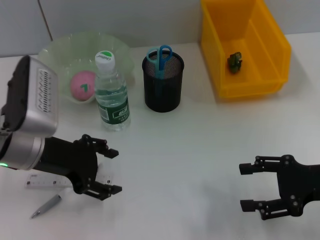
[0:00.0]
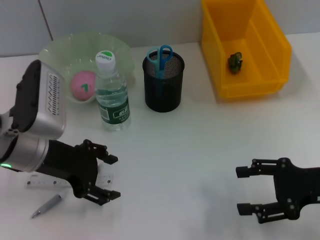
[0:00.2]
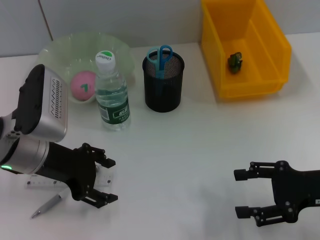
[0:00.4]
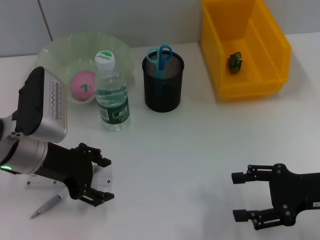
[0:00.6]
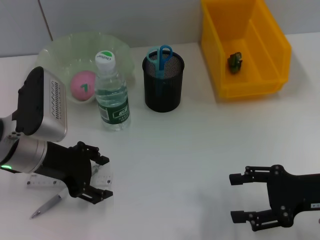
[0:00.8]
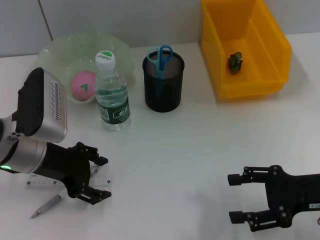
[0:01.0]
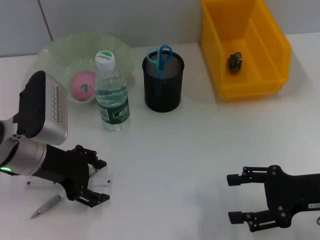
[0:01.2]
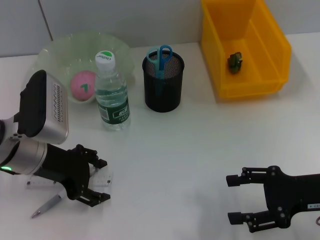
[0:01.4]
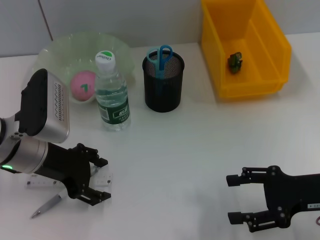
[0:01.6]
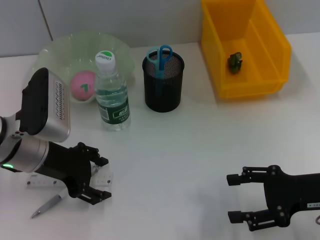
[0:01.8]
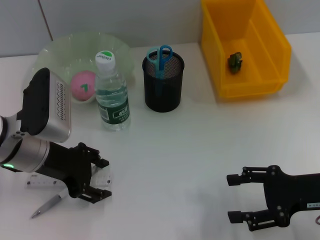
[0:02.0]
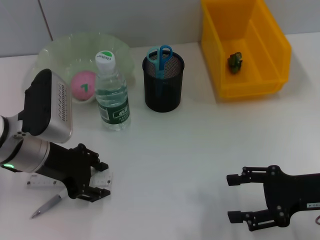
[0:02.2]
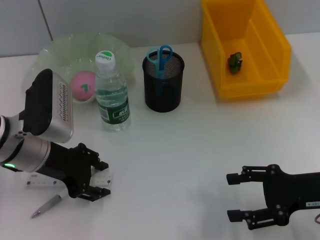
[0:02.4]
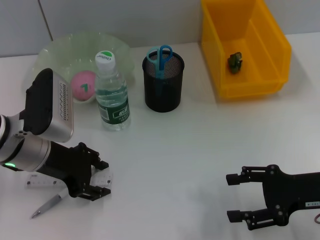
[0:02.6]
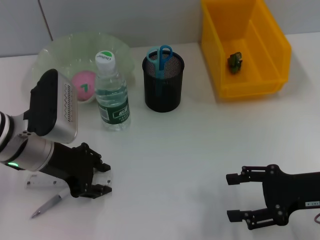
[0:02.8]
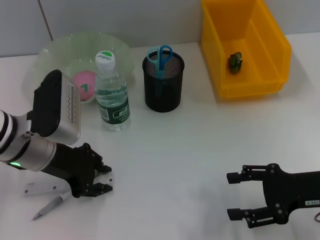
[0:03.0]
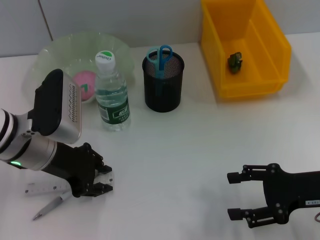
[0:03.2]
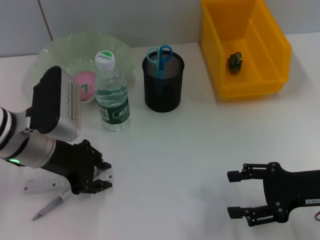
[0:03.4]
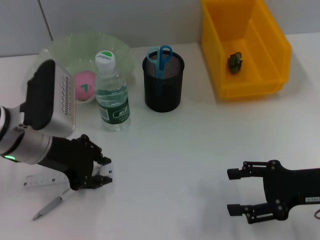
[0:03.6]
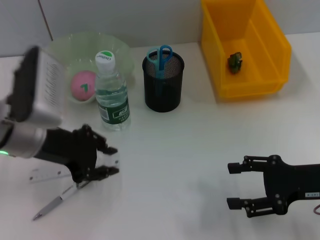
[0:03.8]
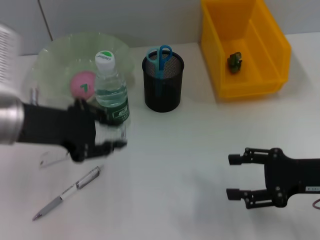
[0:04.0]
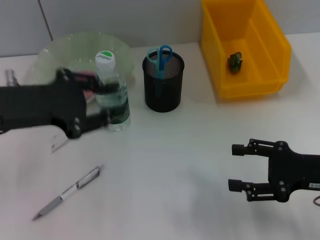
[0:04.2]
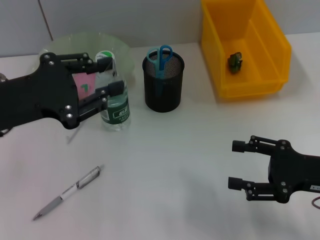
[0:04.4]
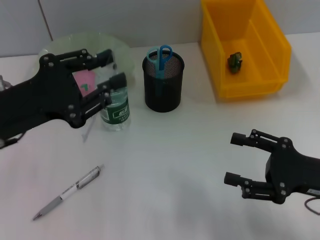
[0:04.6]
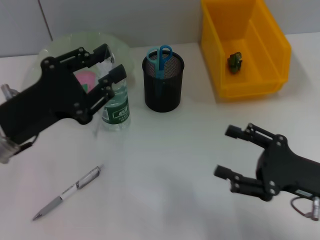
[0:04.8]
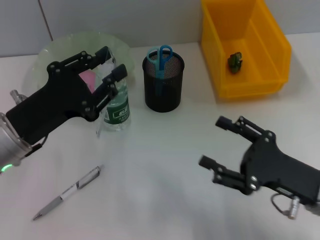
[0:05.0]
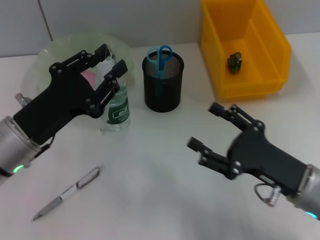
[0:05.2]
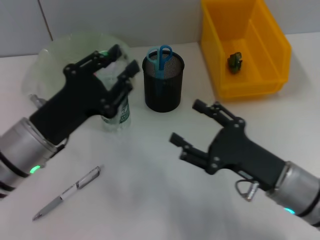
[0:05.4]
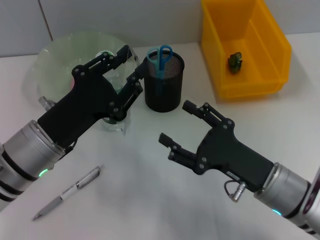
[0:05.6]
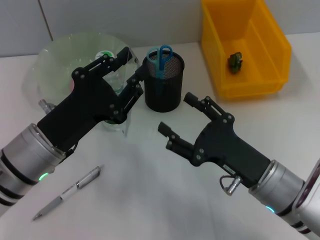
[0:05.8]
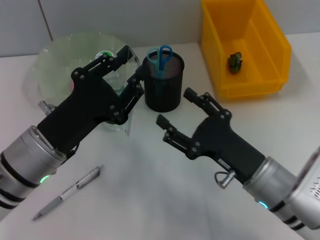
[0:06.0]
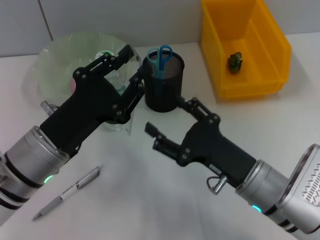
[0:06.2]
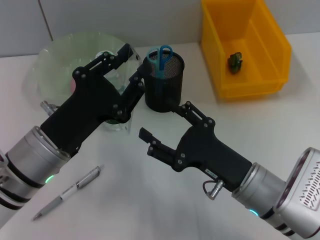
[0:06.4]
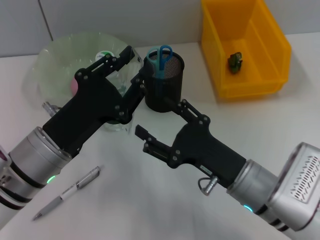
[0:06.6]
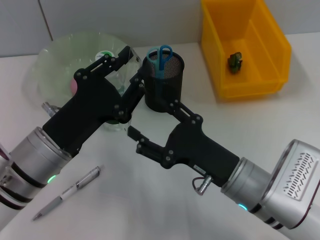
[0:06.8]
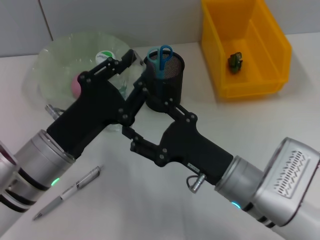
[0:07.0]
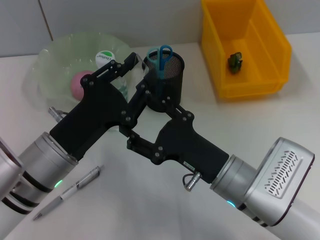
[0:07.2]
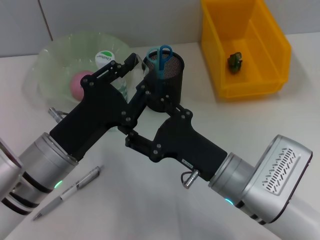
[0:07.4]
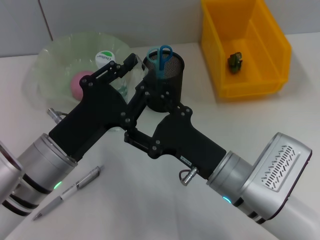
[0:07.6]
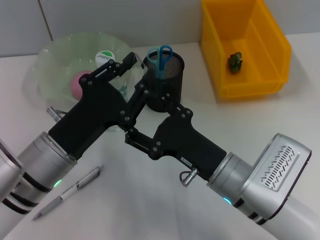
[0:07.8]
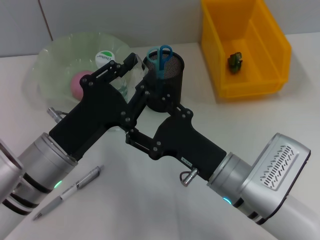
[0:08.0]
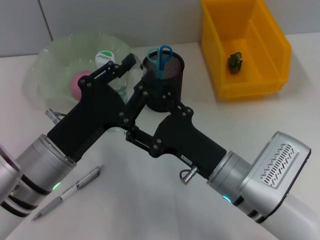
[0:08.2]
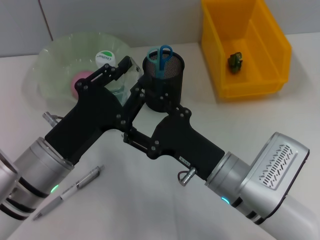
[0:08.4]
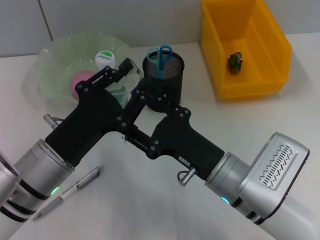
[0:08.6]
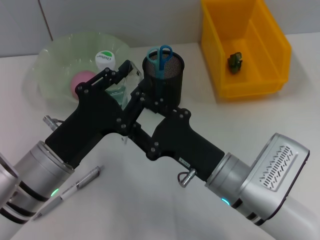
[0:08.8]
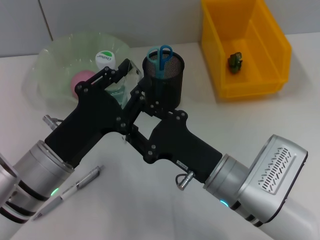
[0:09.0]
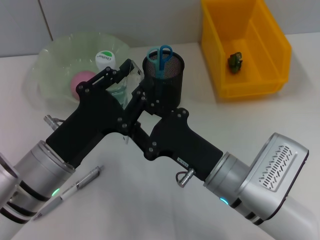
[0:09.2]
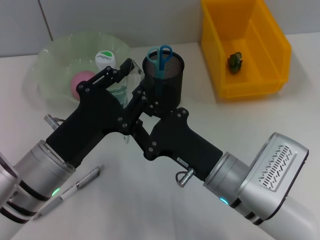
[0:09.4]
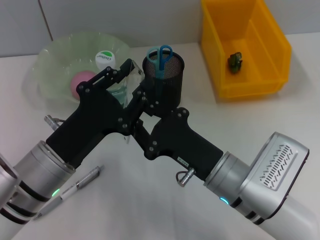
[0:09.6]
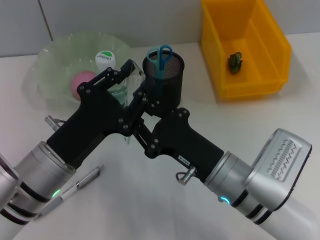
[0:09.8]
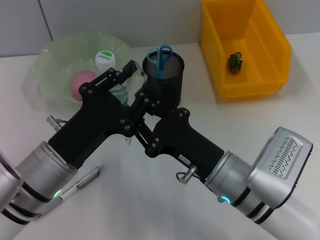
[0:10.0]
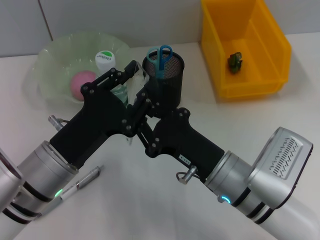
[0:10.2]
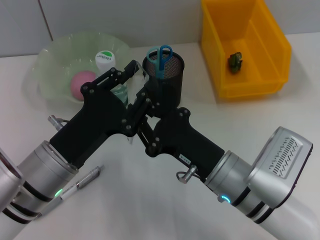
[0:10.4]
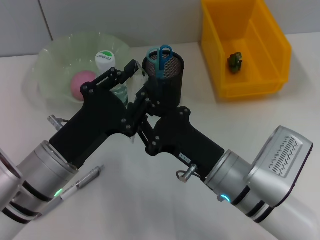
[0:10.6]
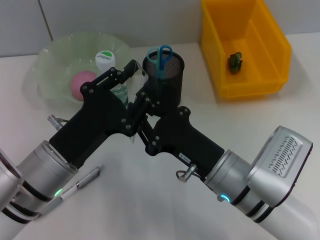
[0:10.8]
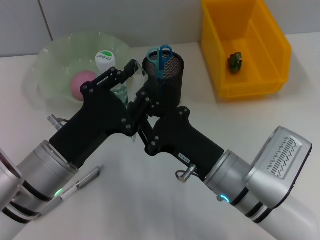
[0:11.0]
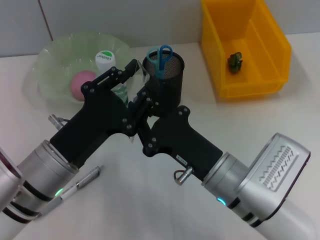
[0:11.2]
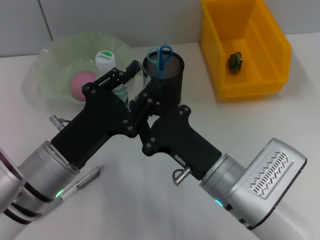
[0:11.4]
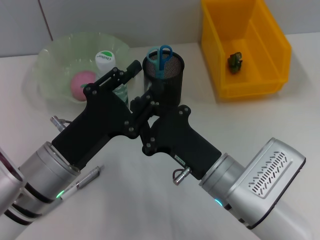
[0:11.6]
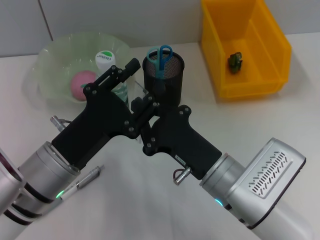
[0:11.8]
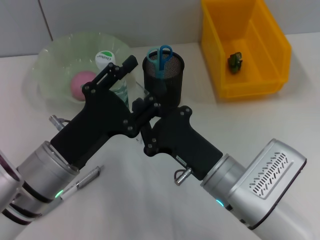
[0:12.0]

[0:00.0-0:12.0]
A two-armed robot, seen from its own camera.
Step, 0:00.0 to 0:02.8: Grab the ruler with the left hand.
Step, 0:03.0 to 0:11.8: Pass the ruler from the left hand to the right hand.
0:00.0 to 0:01.6: The grippers make only small movements.
0:01.6 to 0:03.0: The left gripper closes.
0:03.0 to 0:04.4: The left gripper is displaced upward by about 5 cm.
0:04.4 to 0:06.0: The right gripper travels to the left by about 15 cm; the left gripper is displaced downward and to the right by roughly 10 cm.
0:07.6 to 0:09.0: The right gripper closes.
0:09.0 to 0:12.0: The grippers move only a little.

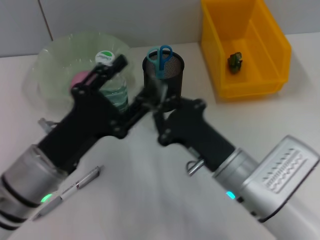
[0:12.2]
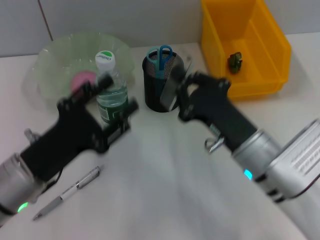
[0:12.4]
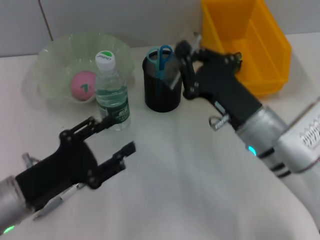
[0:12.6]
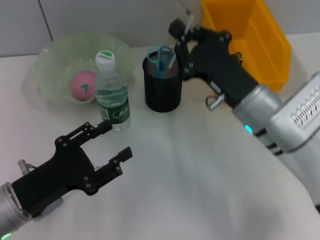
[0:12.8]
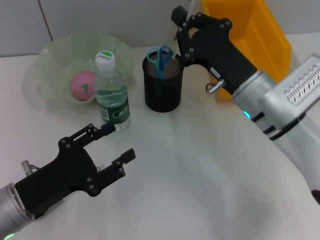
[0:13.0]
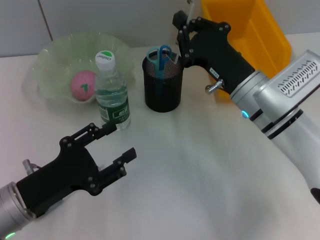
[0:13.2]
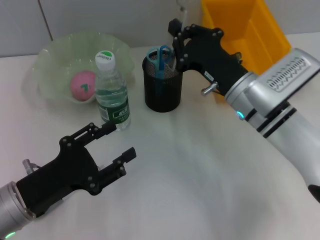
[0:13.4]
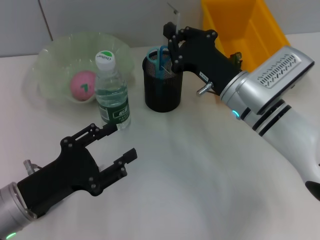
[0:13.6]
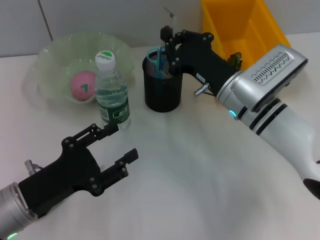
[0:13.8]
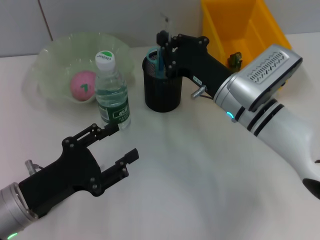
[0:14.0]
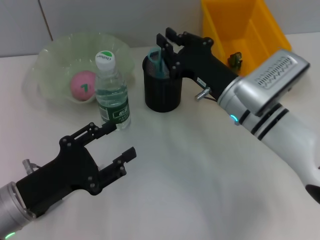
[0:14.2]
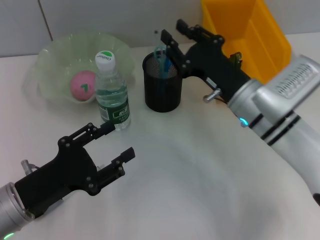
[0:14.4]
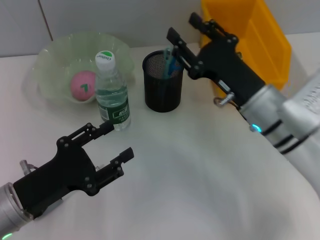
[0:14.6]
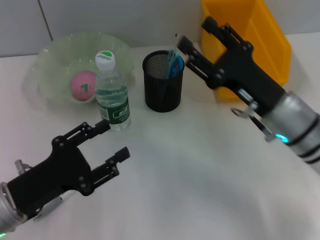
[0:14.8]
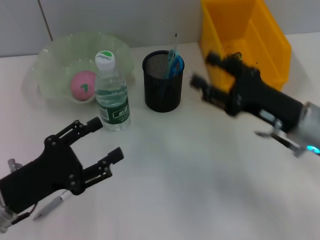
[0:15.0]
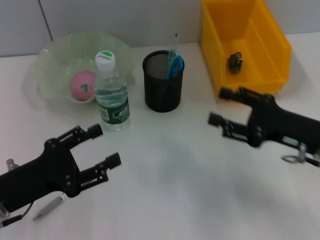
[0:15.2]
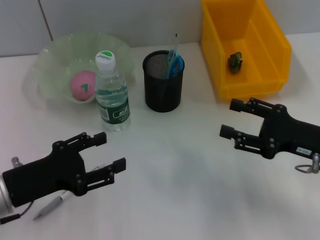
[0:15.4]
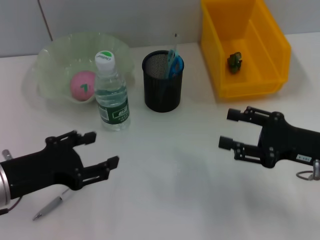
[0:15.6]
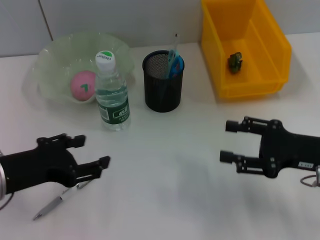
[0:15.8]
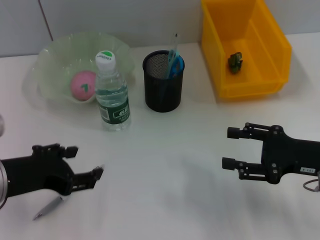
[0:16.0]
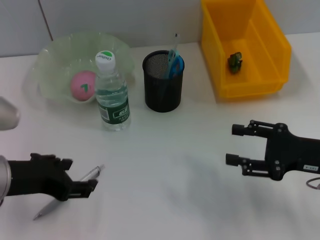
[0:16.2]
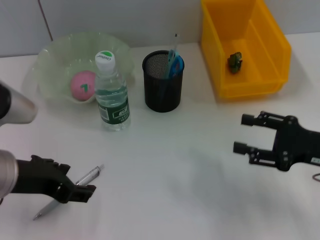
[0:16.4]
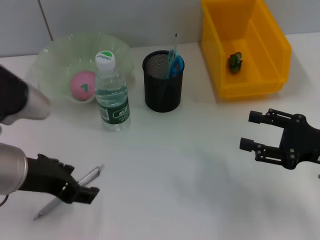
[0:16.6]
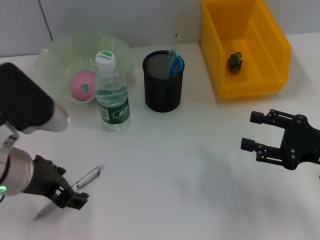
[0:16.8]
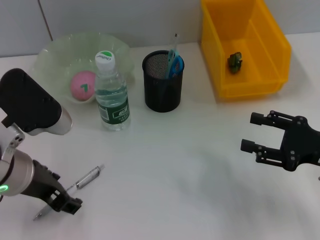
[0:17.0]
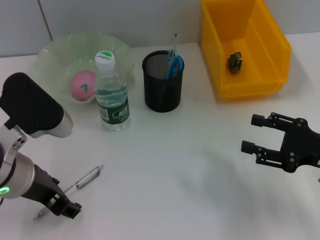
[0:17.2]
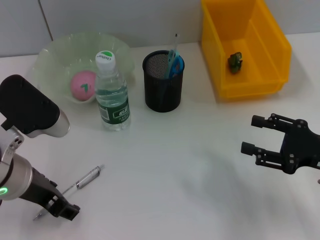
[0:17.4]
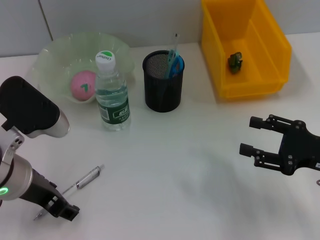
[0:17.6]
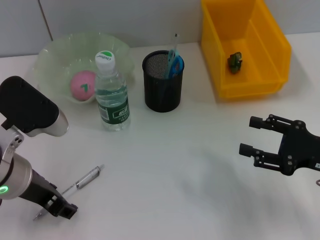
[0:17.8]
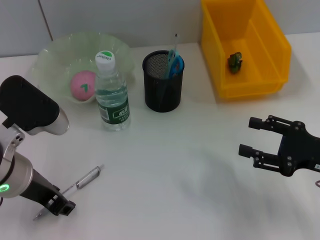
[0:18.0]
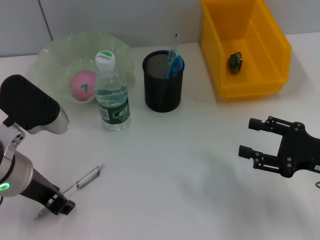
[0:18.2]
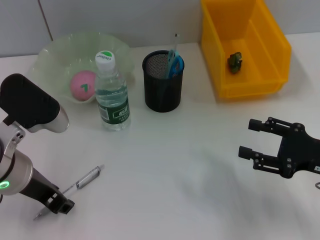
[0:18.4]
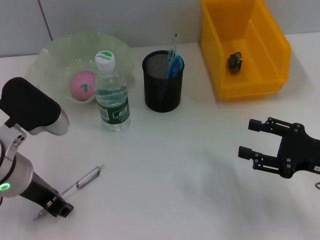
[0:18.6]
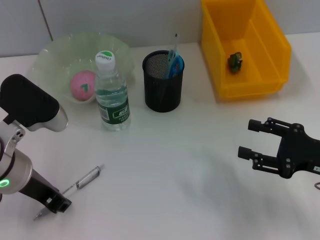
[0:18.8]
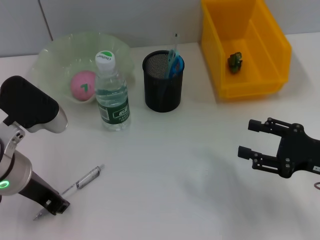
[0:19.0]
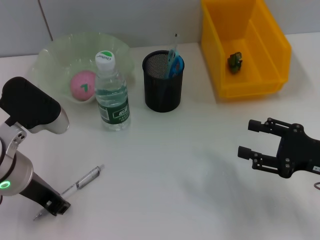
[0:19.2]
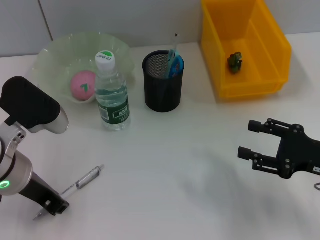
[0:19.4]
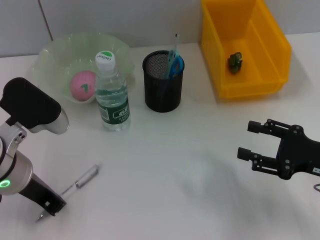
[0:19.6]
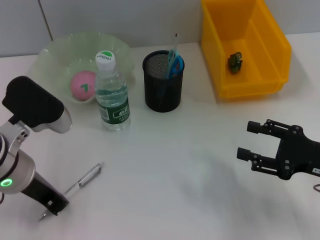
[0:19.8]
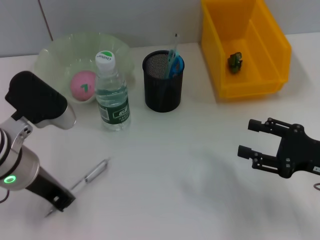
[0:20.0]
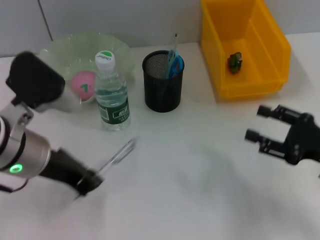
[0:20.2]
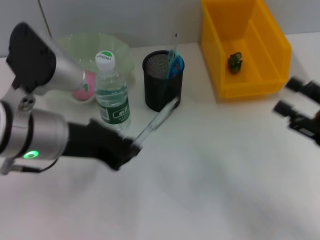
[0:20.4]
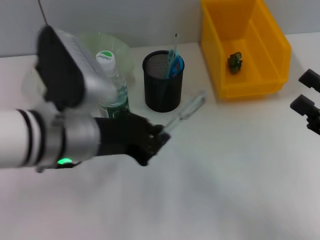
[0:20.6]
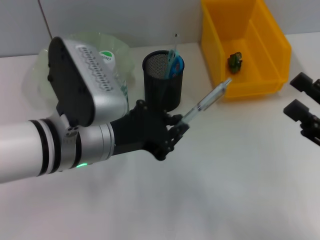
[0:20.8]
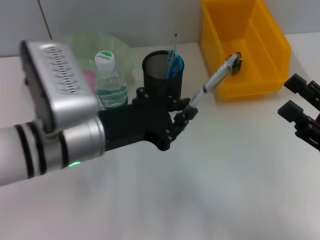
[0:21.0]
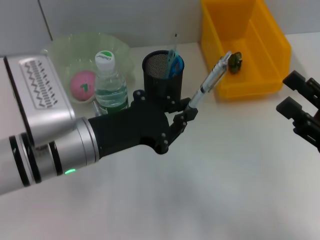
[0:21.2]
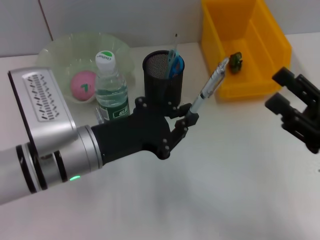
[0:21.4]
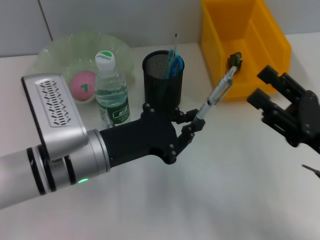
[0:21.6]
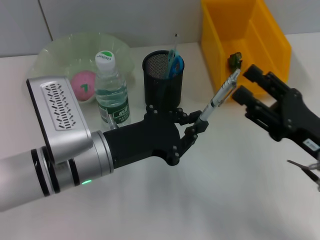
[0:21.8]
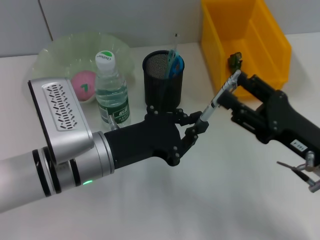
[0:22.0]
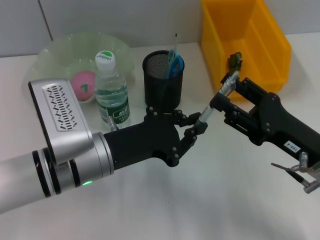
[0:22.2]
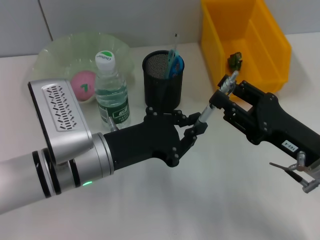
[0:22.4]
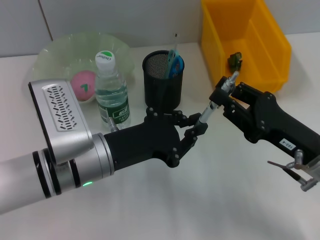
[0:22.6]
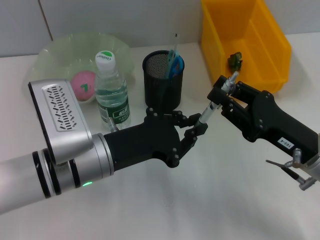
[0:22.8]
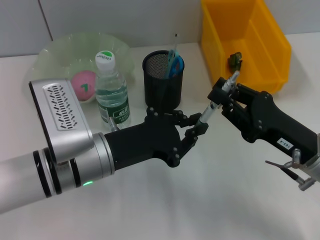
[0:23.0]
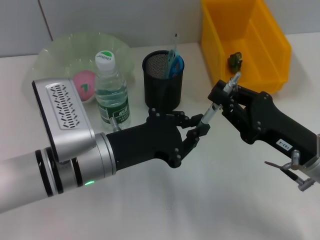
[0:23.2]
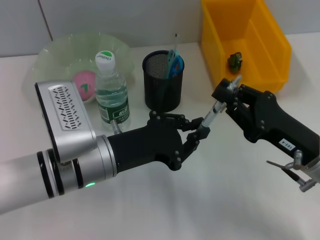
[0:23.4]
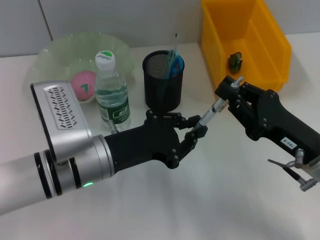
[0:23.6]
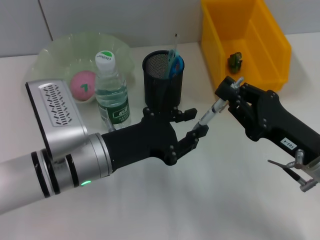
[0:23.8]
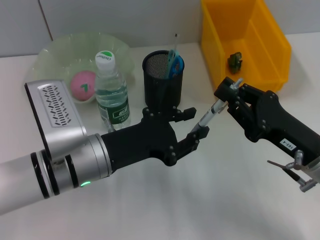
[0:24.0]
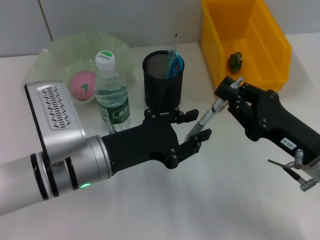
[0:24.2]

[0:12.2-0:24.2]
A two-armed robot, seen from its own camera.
Step, 0:12.2 to 0:14.2: Place the ruler into the pen holder with the right hand.
Step, 0:14.6 to 0:19.8: Grab the gray spring-action pen with the left hand.
0:12.2 to 0:13.8: The right gripper travels forward by roughly 10 cm. Meanwhile the left gripper shifts some 5 cm to the left.
0:13.8 to 0:15.2: The right gripper heads to the right and backward, covering some 15 cm, and opens its fingers.
0:15.2 to 0:16.6: The left gripper goes some 10 cm upward and to the right.
0:16.6 to 0:18.2: The left gripper closes its fingers.
0:18.2 to 0:19.8: The left gripper closes up.
0:19.8 to 0:21.2: The left gripper shifts roughly 5 cm to the right.
0:21.2 to 0:22.6: The right gripper heads to the left, covering some 5 cm.
0:22.6 to 0:24.2: The right gripper closes up, while the left gripper opens.
